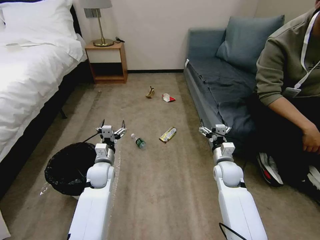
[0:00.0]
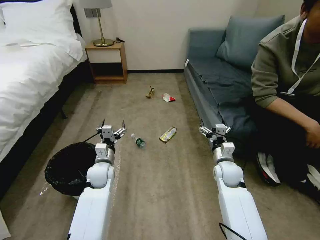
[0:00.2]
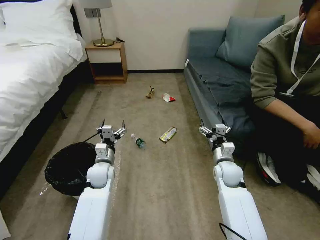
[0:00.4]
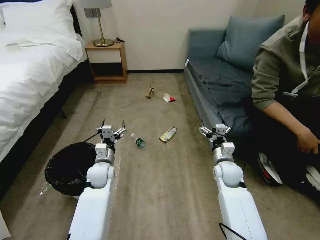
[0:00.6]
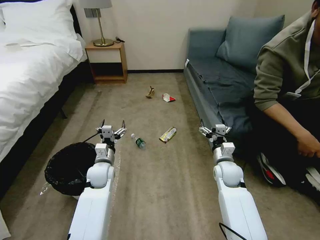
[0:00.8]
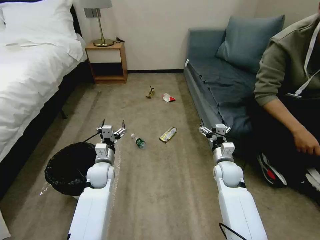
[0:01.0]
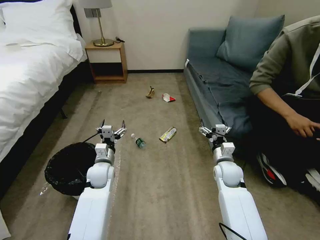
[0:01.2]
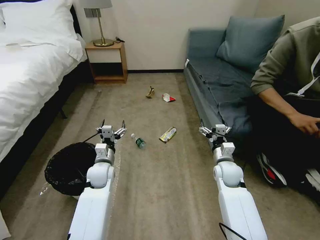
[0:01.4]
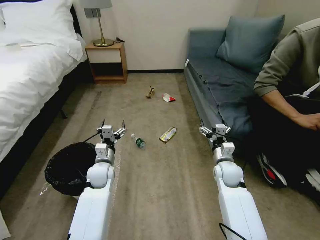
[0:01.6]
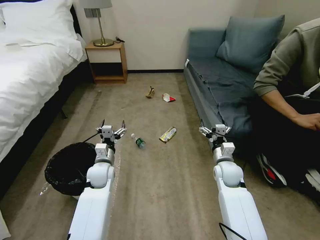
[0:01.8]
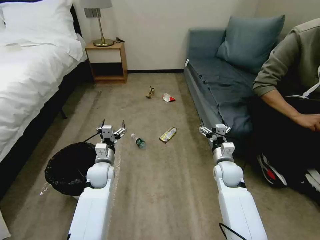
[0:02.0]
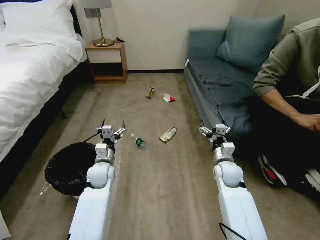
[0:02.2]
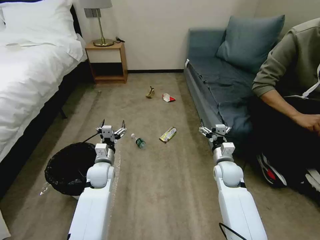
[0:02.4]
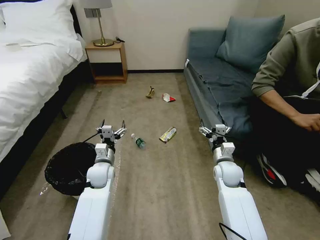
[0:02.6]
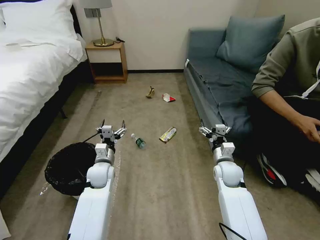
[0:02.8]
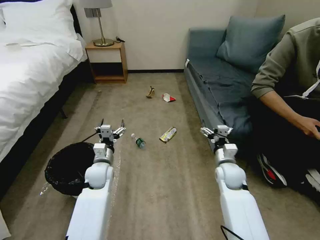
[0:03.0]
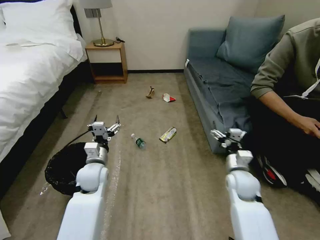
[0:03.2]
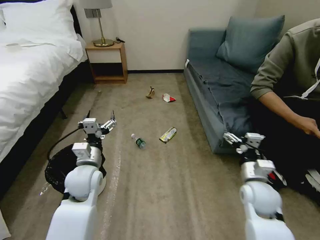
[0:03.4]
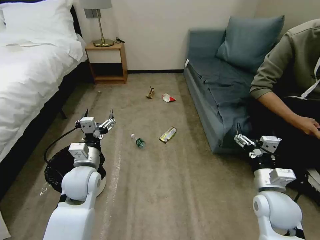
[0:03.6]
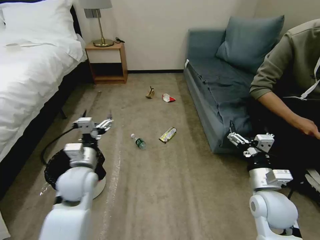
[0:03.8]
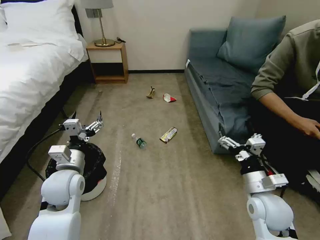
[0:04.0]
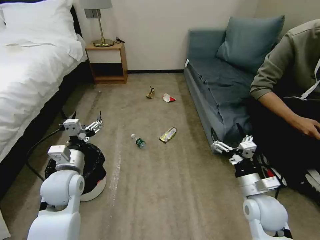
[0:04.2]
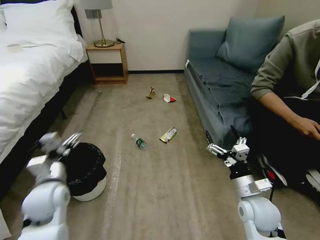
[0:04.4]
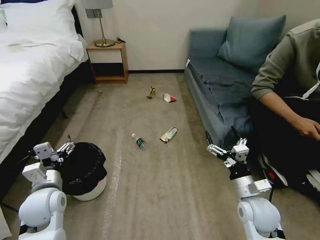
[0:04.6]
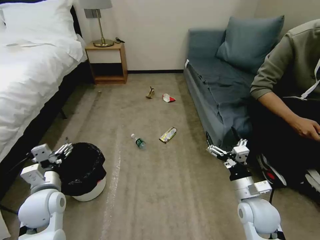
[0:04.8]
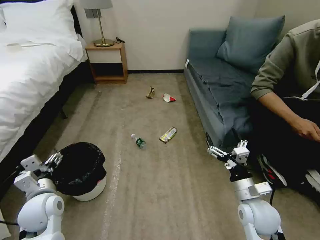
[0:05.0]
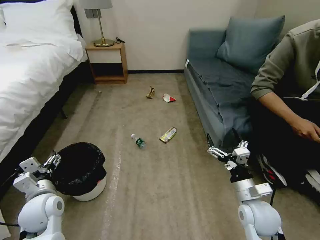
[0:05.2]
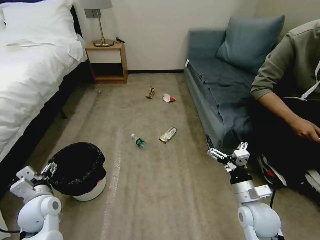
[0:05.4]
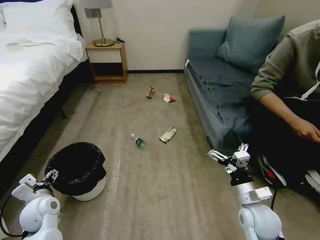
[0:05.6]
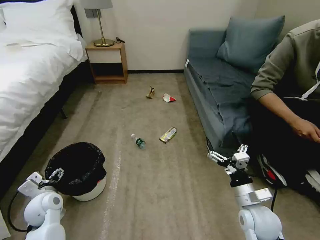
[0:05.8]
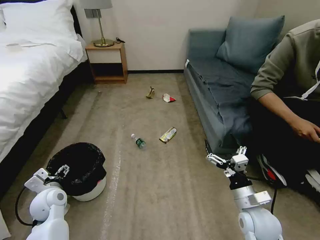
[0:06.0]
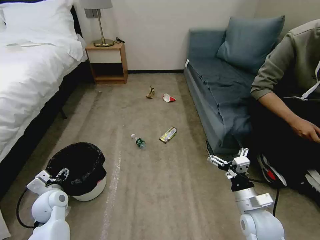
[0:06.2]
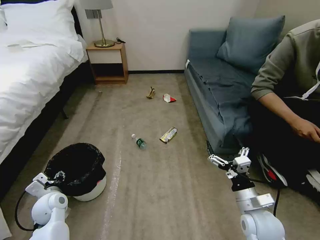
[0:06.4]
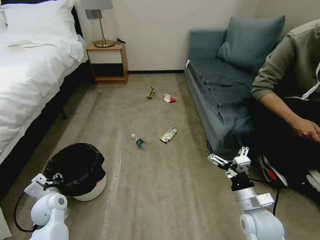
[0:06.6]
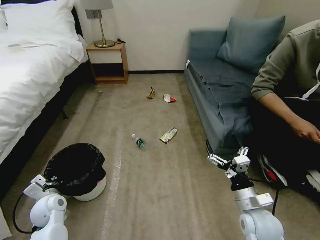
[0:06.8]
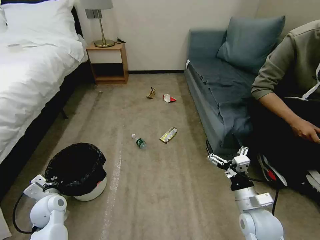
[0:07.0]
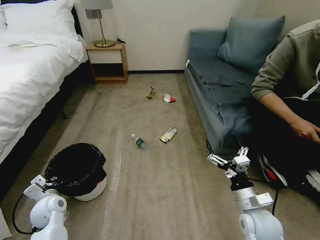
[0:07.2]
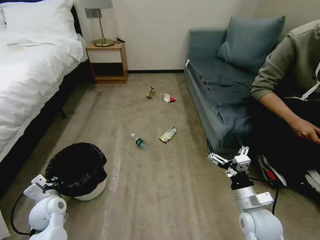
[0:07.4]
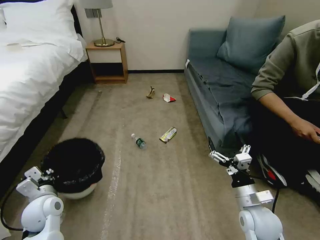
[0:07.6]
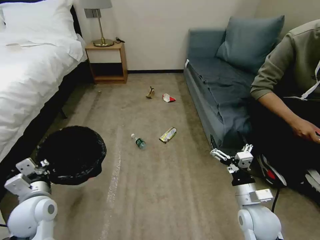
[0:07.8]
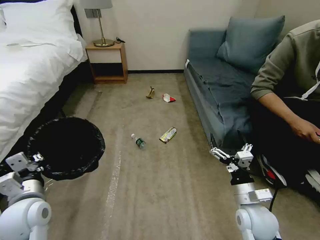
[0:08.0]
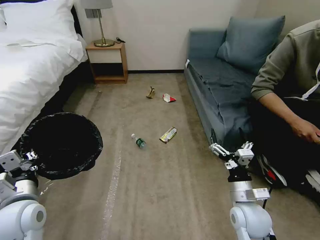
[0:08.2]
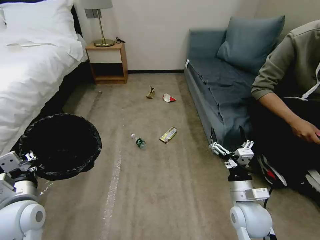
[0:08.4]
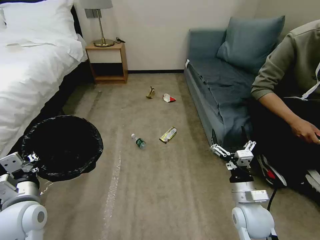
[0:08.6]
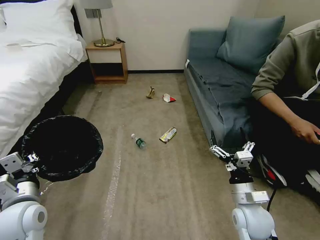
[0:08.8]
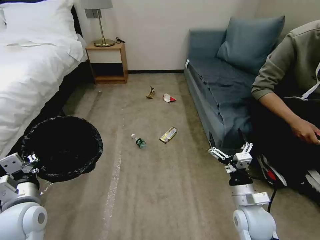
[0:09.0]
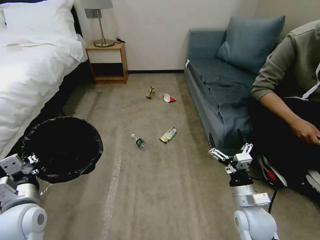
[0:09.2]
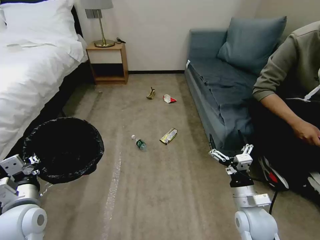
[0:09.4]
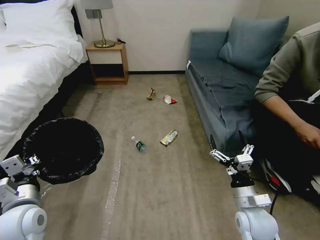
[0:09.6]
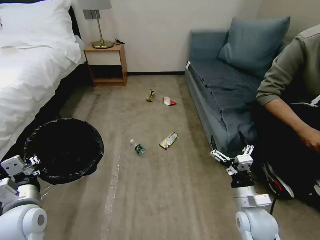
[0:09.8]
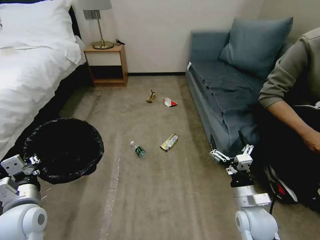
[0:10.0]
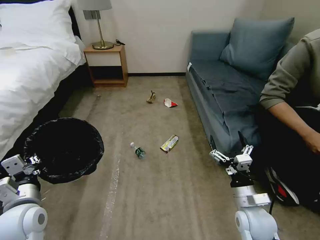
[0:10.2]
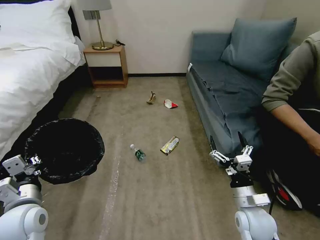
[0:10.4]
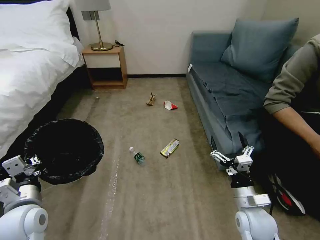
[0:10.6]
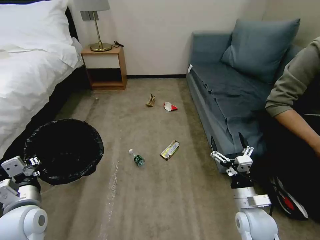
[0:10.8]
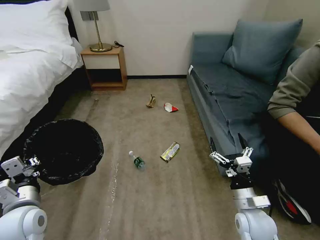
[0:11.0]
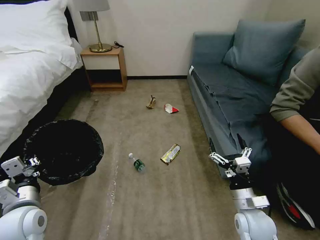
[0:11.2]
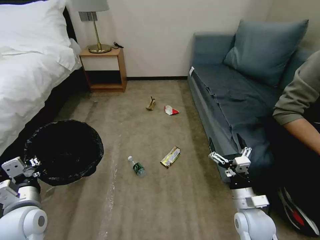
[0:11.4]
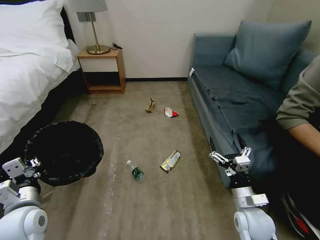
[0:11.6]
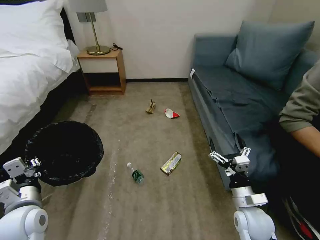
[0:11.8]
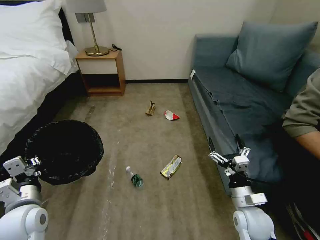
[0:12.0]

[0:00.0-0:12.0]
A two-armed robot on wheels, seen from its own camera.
Task of the whole recording: Pick up the trash bin, then pick up the garbage on the floor and place it into the trash bin.
0:01.6 to 0:03.0: Both grippers stay about where they are.
0:03.0 to 0:04.4: The left gripper goes approximately 15 cm backward, upward and to the left. Meanwhile the right gripper goes roughly 15 cm backward.
0:04.4 to 0:06.0: The left gripper heads downward and to the left, covering some 10 cm.
0:06.0 to 0:07.6: The left gripper closes its fingers.
0:07.6 to 0:09.0: The left gripper travels upward and backward by roughly 10 cm.
0:09.0 to 0:10.4: The grippers make only small movements.

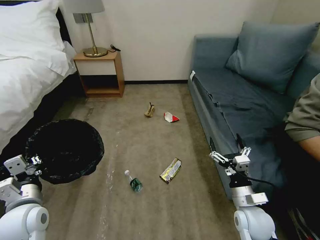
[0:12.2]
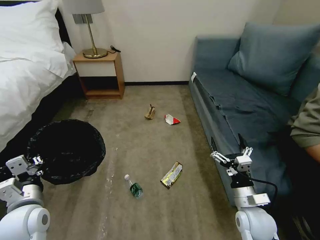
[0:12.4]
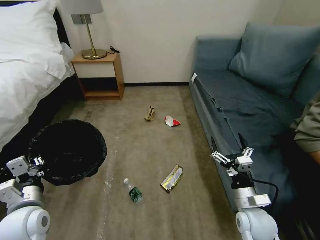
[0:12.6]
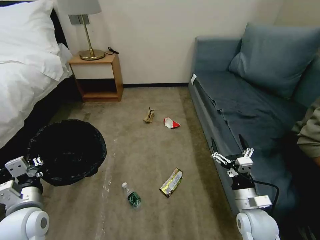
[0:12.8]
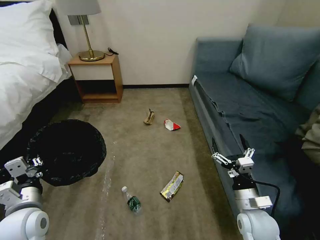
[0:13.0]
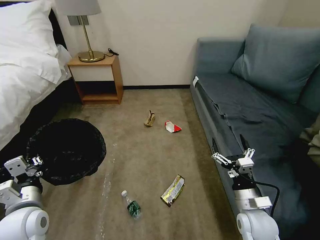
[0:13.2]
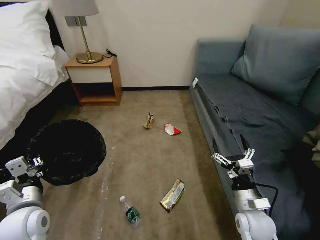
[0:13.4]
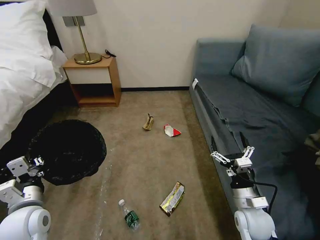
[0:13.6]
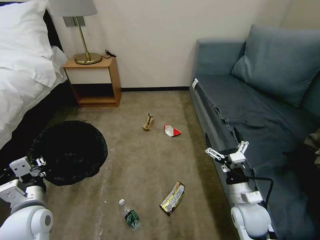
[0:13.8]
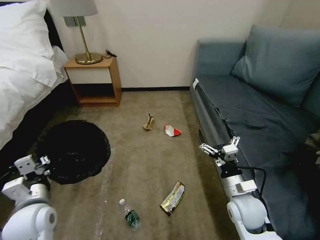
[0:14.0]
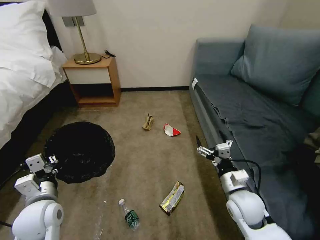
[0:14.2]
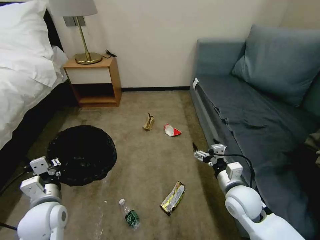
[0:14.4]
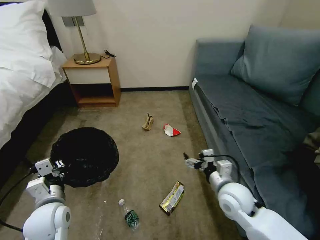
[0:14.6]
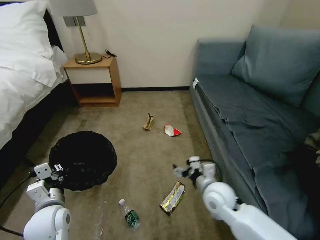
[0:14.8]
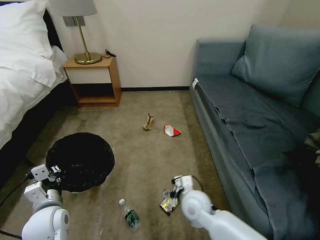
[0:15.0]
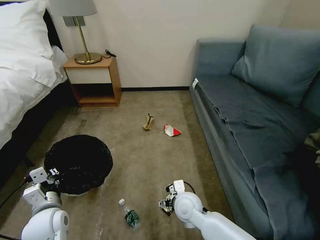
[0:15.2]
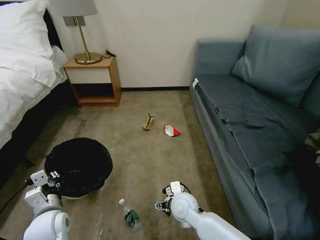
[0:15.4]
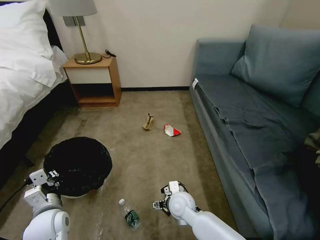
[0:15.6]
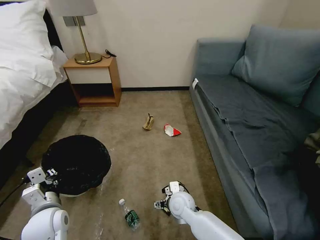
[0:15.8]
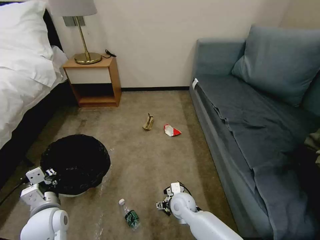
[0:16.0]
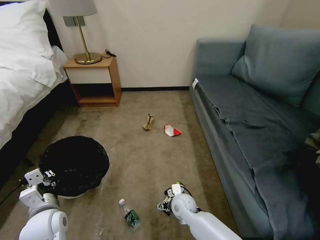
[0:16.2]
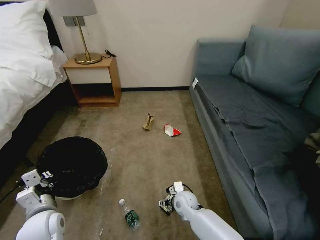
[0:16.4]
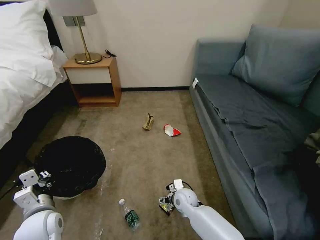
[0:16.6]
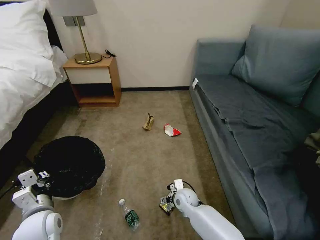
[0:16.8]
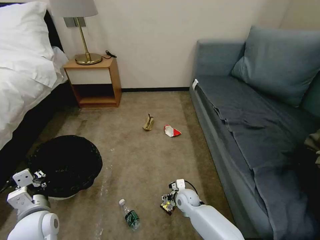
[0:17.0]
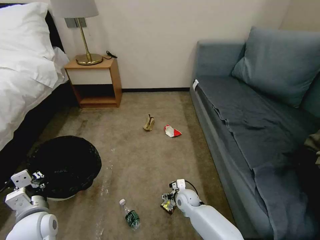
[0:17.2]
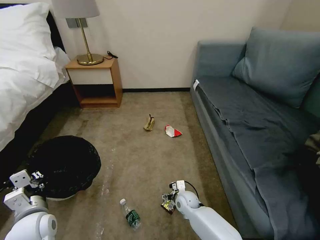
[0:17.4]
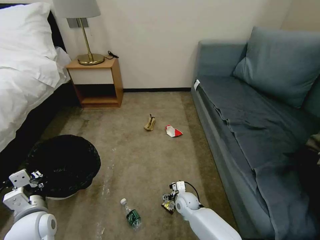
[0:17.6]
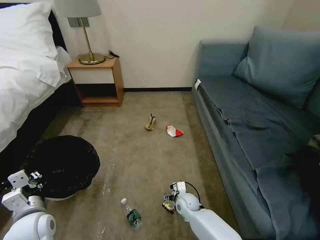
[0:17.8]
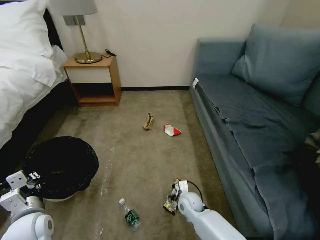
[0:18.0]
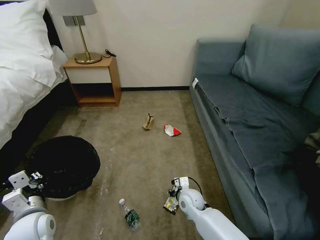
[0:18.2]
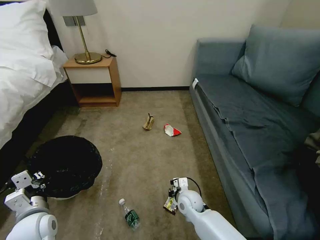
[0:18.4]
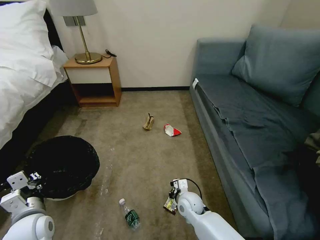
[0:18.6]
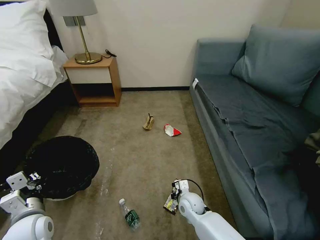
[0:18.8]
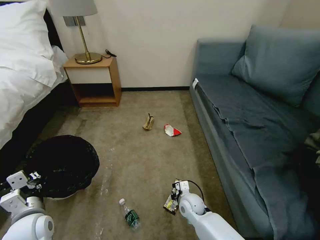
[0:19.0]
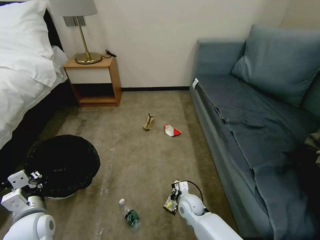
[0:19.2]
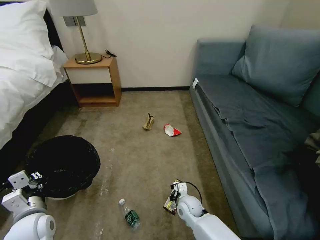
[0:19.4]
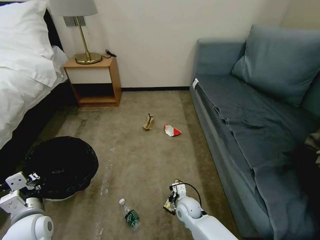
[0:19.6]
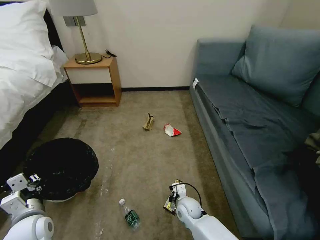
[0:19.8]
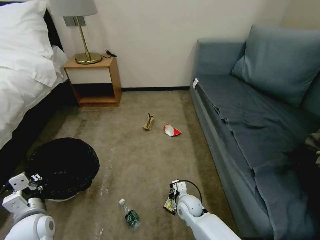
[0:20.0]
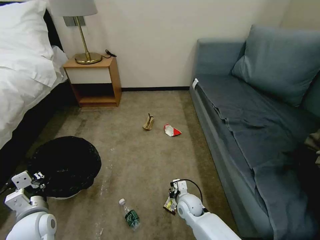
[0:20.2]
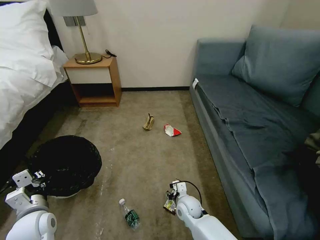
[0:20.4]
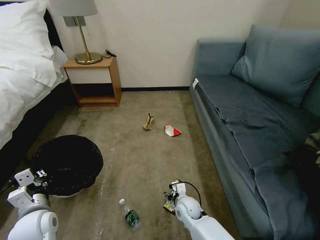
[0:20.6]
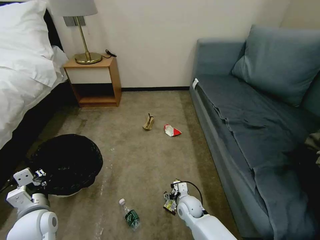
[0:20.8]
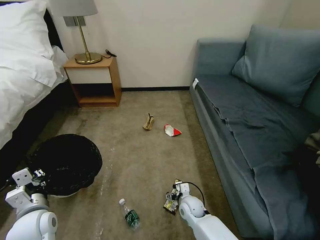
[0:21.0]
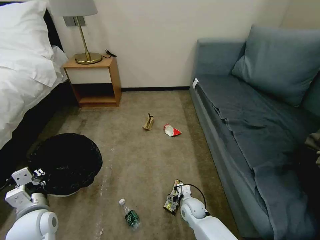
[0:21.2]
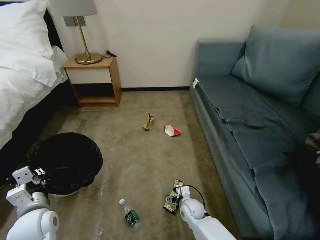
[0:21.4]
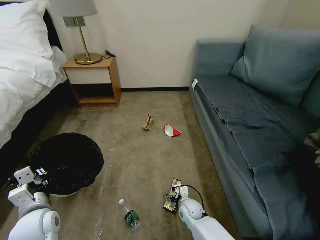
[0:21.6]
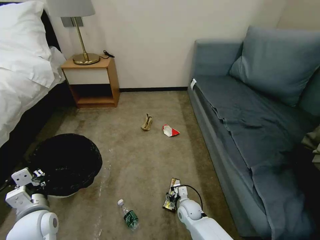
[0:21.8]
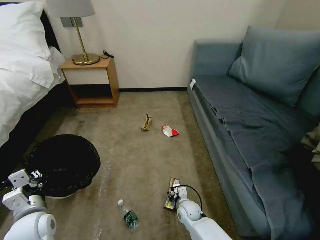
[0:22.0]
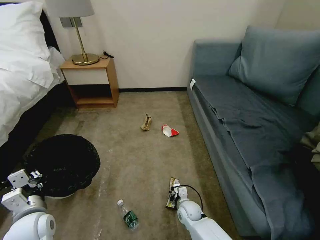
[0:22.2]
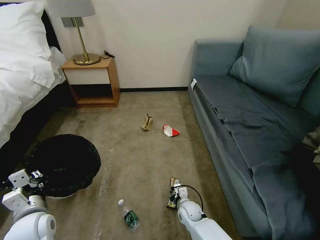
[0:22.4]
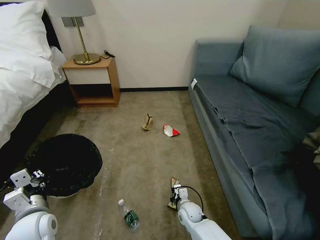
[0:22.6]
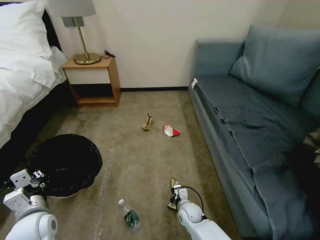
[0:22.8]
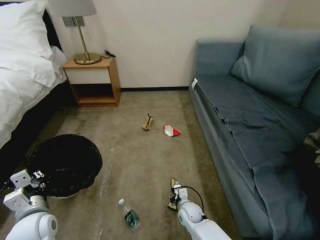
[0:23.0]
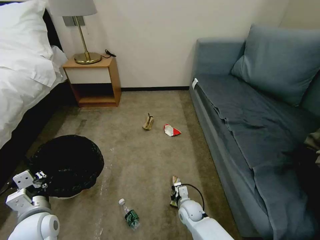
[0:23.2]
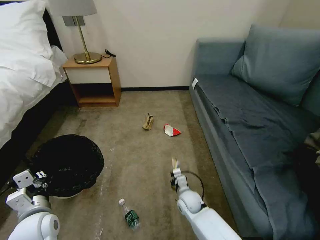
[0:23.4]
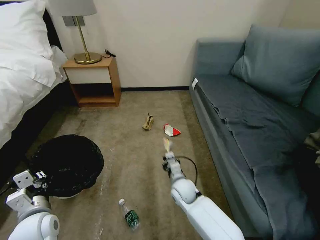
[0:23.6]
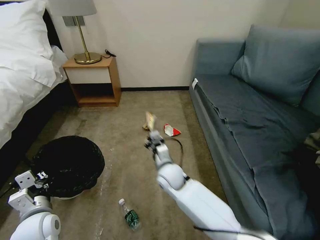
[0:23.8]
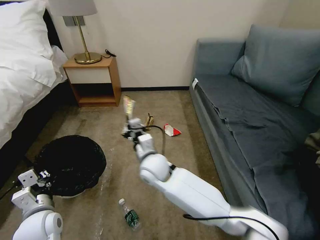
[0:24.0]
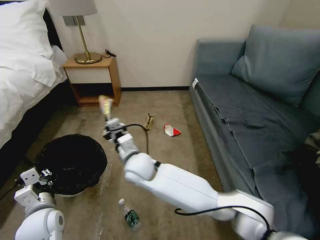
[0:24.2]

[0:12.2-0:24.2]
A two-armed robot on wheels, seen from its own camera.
Task of the whole recording: Pick up the trash bin, then pick up the garbage on the floor and place it into the trash bin.
0:13.8 to 0:15.2: The left gripper changes place by roughly 5 cm. Meanwhile the right gripper moves to the left, roughly 15 cm.
0:15.2 to 0:16.6: The right gripper shifts roughly 10 cm downward and forward.
0:16.6 to 0:18.2: The right gripper closes its fingers.
0:18.2 to 0:19.8: The right gripper changes place by about 5 cm, and closes.
0:19.8 to 0:21.2: The right gripper opens up.
0:21.2 to 0:22.6: The right gripper closes up.
0:22.6 to 0:24.2: The right gripper shifts roughly 35 cm upward and to the left.
